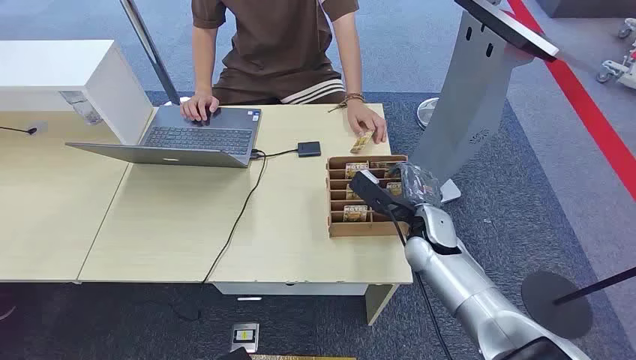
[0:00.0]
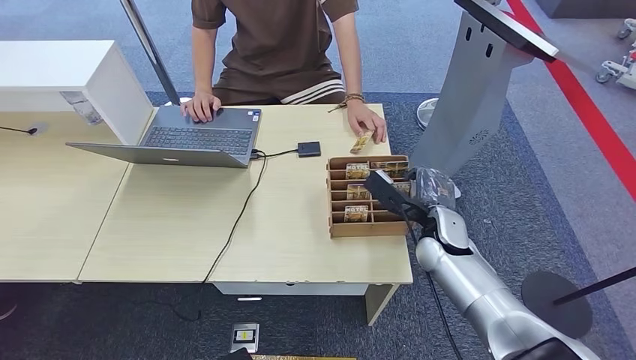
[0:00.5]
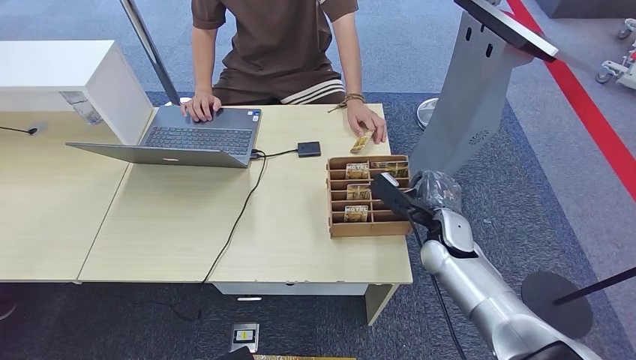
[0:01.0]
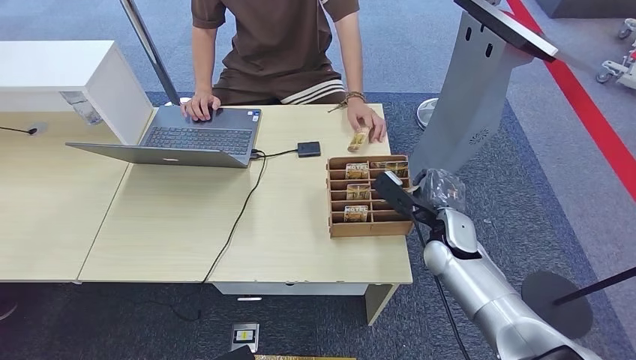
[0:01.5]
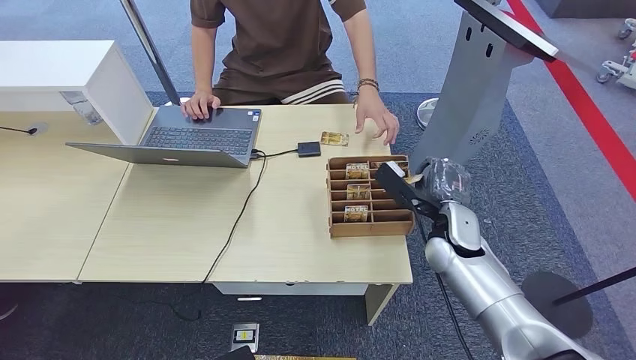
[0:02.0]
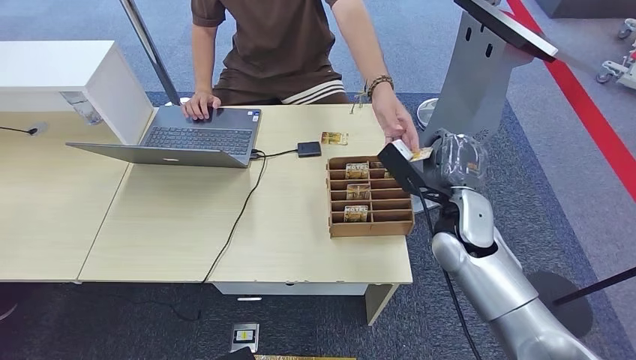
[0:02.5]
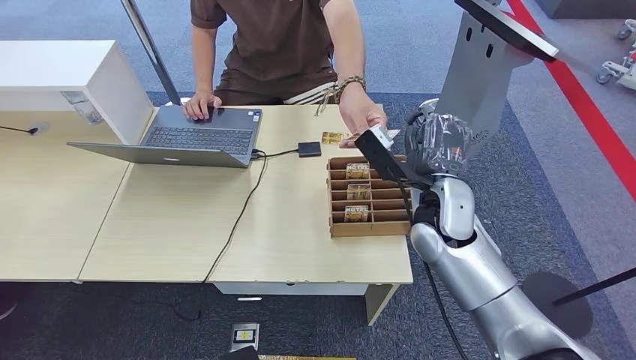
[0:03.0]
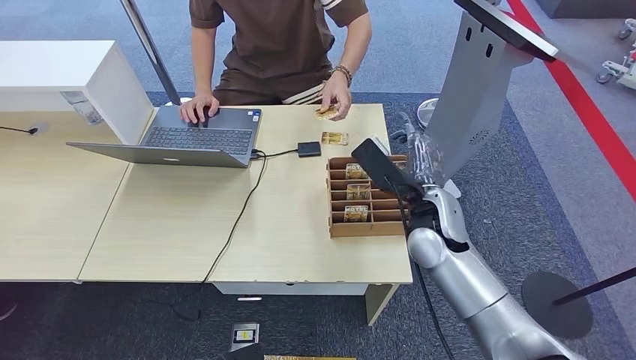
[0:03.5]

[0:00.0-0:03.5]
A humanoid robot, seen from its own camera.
Step, 0:00.0 to 0:01.5: Pick up the key card from the card box.
Step, 0:02.0 to 0:03.5: Hand the key card to the target.
0:02.0 to 0:03.5: The right hand is displaced upward and to the left by approximately 10 cm.
